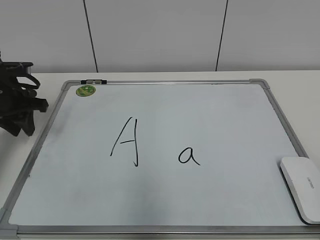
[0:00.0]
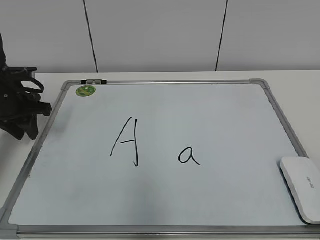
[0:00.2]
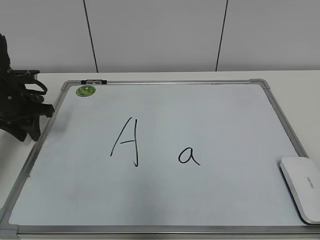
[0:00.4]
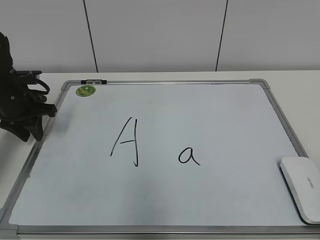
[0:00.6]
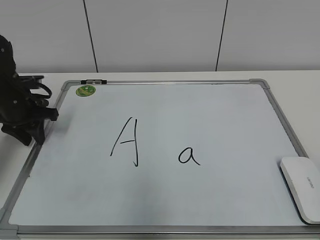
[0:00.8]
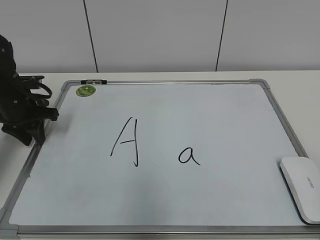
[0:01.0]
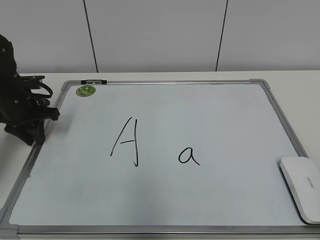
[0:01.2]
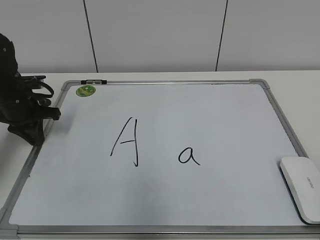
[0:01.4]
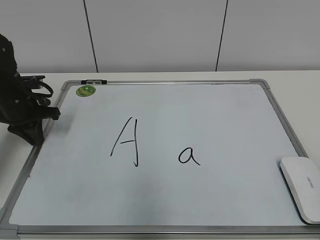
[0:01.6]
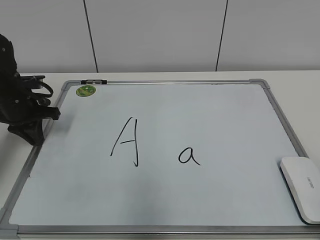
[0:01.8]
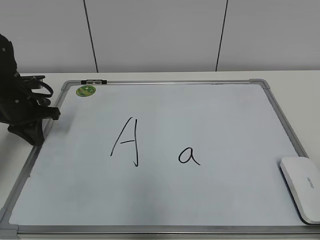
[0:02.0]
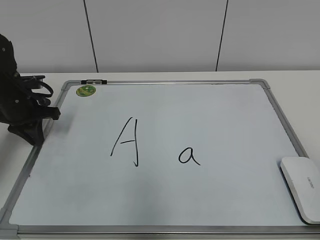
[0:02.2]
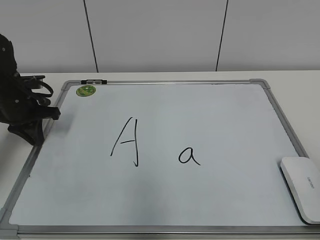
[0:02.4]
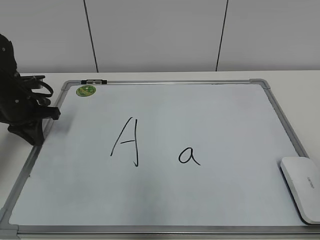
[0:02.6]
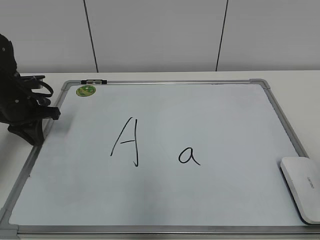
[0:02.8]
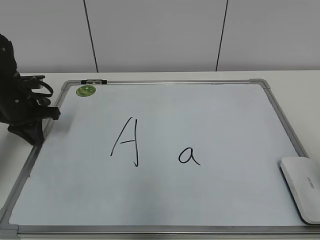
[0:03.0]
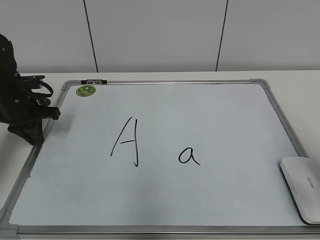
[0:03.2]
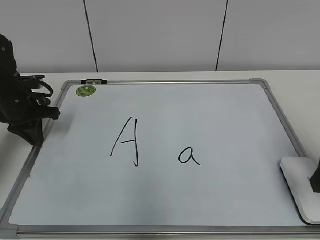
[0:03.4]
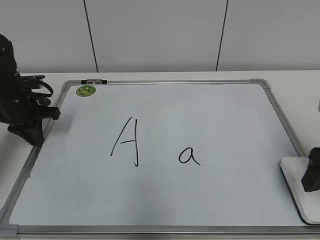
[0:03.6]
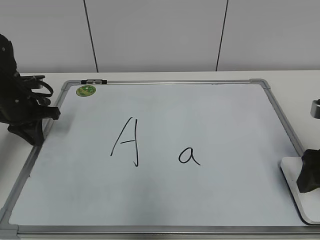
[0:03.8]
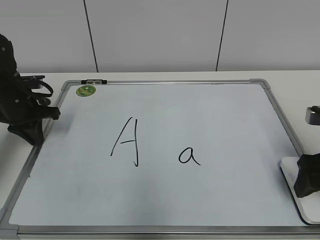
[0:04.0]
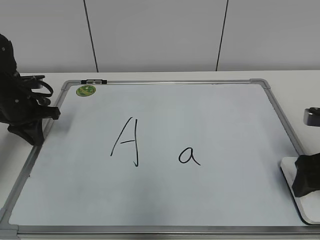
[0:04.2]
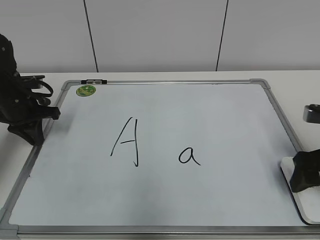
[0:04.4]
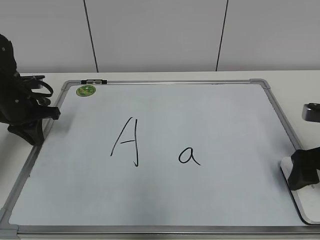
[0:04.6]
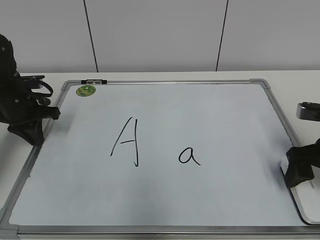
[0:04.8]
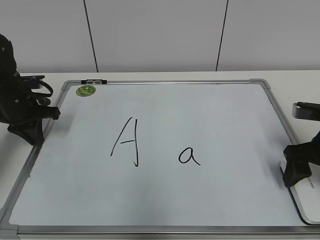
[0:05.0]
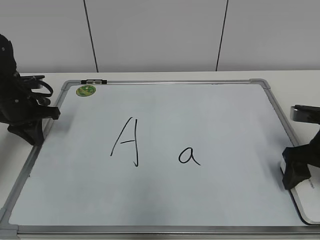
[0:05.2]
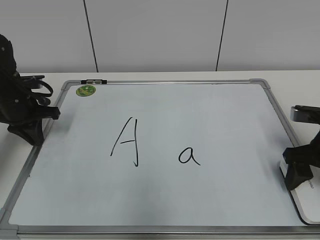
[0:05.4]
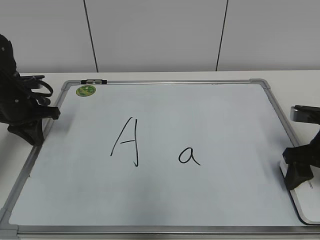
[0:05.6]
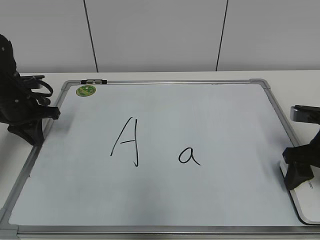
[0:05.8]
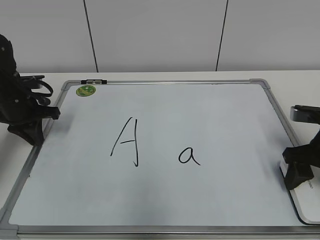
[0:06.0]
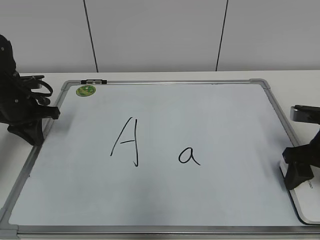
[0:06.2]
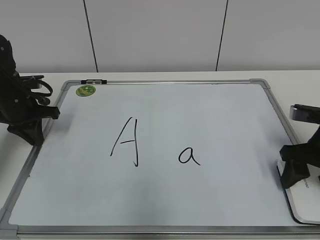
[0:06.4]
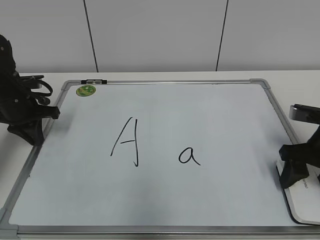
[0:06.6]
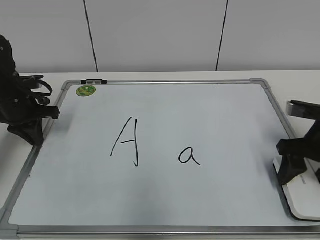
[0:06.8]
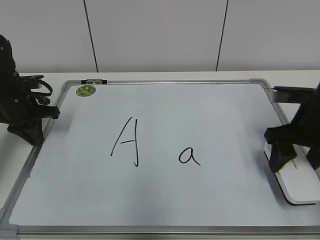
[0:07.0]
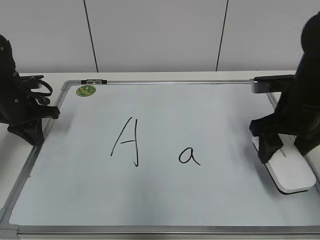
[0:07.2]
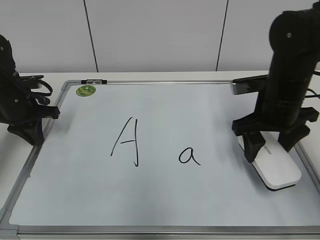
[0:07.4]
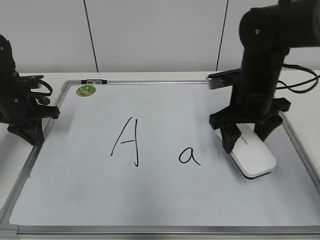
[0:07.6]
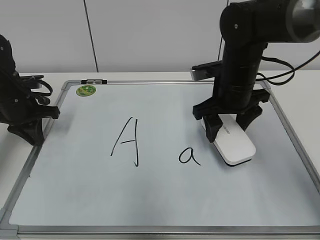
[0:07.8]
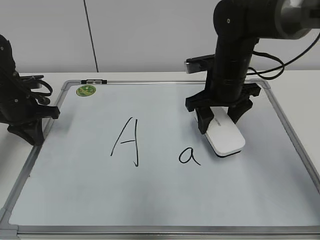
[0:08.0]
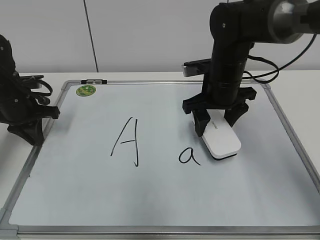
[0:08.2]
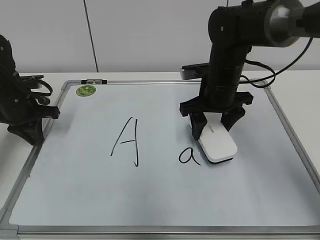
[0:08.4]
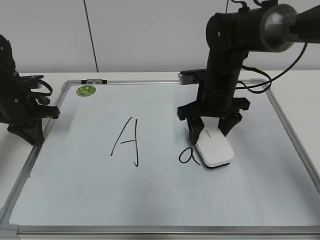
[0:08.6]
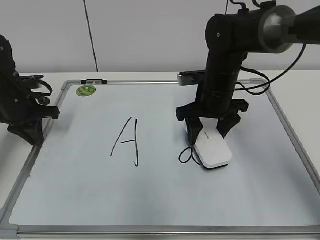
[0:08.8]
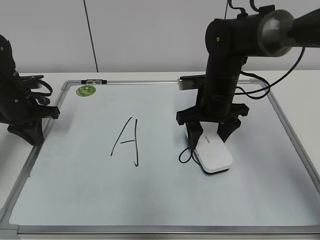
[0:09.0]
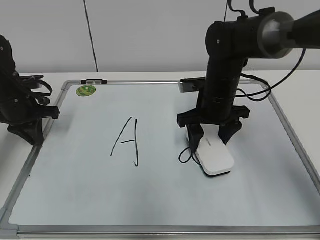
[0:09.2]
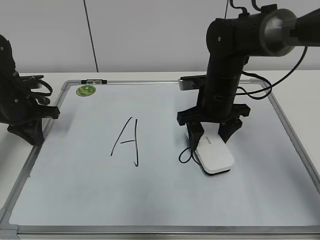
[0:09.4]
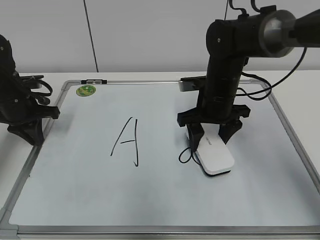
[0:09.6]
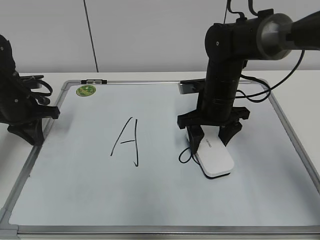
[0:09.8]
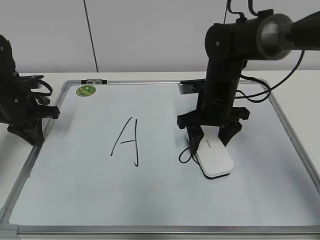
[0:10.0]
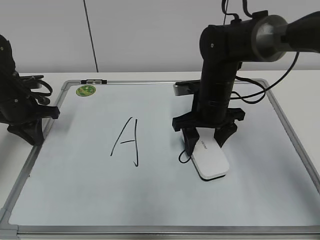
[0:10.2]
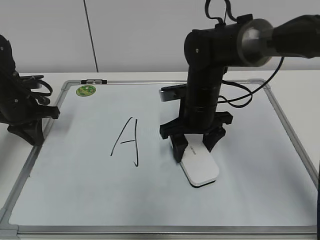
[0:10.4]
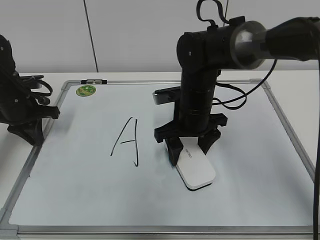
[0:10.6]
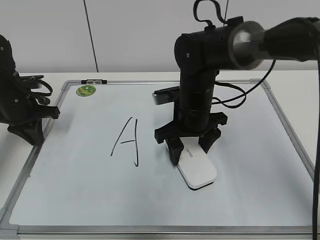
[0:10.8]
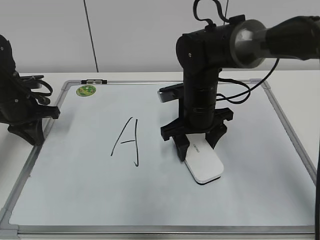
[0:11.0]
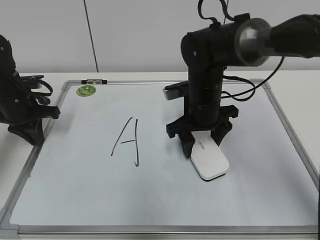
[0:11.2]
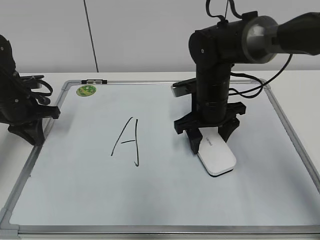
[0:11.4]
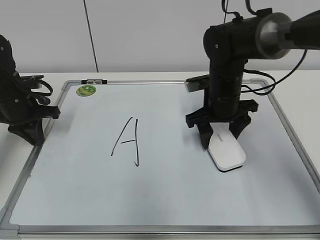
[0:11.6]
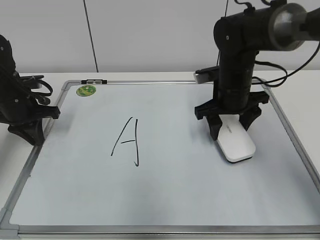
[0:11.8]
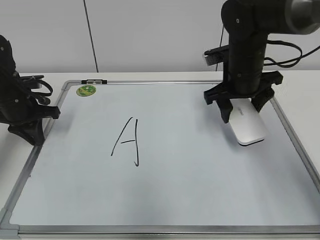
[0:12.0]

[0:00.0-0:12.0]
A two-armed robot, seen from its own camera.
Task of the whole recording: pick up the eraser on the blackboard and erase the letter "a".
Step, 0:01.4 to 0:06.2: Grab the eraser with your right hand.
Step, 0:06.4 to 0:11.6: Erase the letter a with your right hand.
0:00.0 to 0:01.6: The left gripper closes.
0:01.6 to 0:03.0: The right gripper shifts some 15 cm forward, and opens up.
0:03.0 to 0:04.4: The right gripper moves forward and downward, about 15 cm.
0:04.4 to 0:06.0: The right gripper closes its fingers.
0:06.0 to 0:07.6: The right gripper goes some 15 cm to the left and forward.
0:07.6 to 0:09.0: The right gripper is displaced to the left by approximately 5 cm.
0:09.0 to 0:10.4: The grippers move only a little.
0:10.4 to 0:12.0: The right gripper moves to the right and upward, about 10 cm.

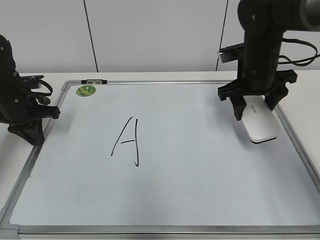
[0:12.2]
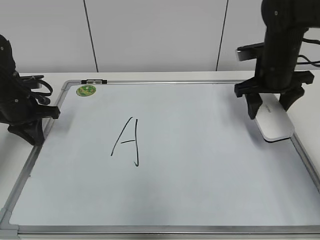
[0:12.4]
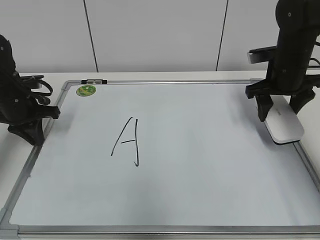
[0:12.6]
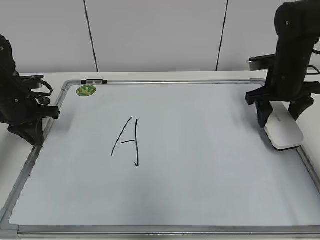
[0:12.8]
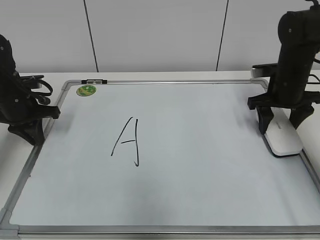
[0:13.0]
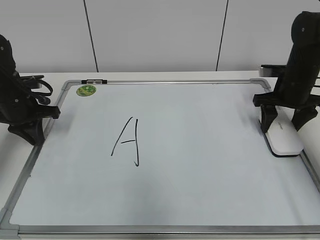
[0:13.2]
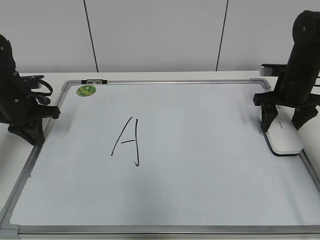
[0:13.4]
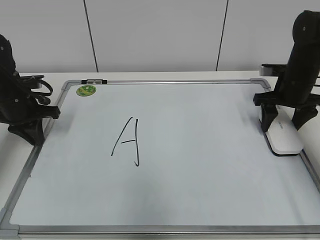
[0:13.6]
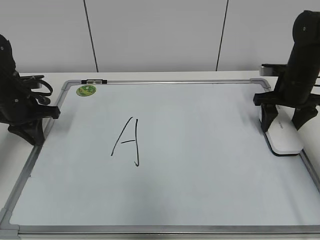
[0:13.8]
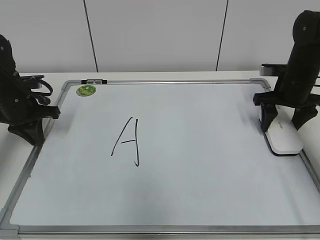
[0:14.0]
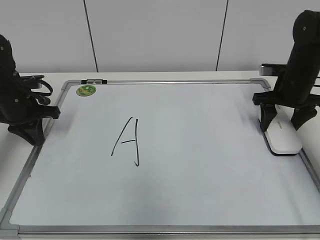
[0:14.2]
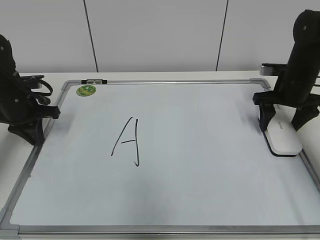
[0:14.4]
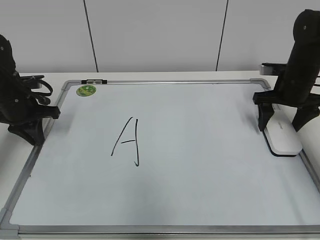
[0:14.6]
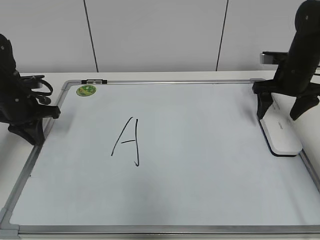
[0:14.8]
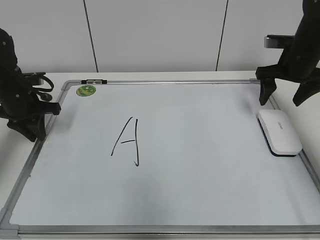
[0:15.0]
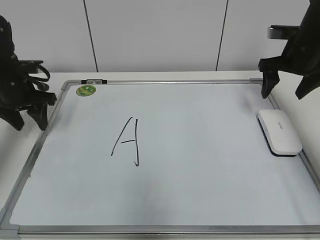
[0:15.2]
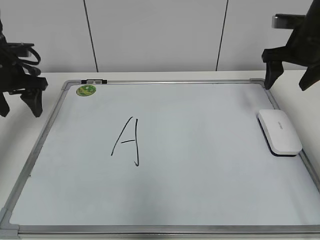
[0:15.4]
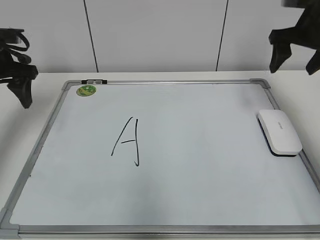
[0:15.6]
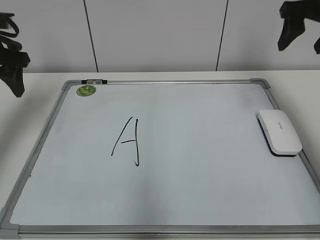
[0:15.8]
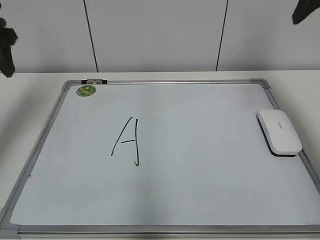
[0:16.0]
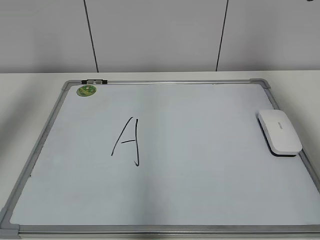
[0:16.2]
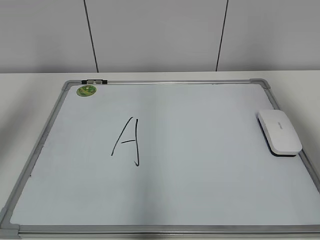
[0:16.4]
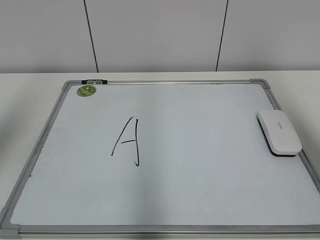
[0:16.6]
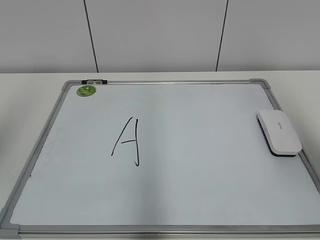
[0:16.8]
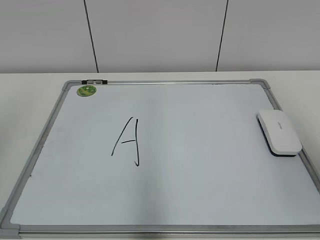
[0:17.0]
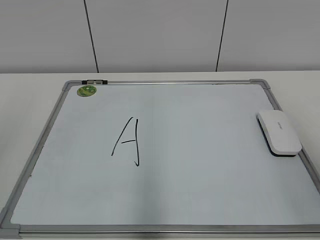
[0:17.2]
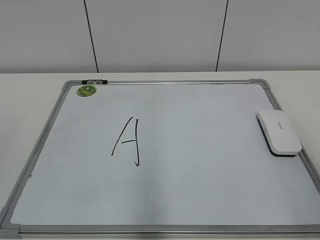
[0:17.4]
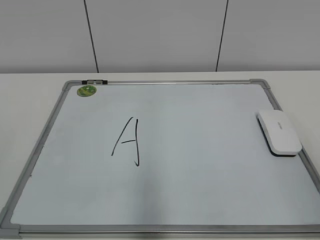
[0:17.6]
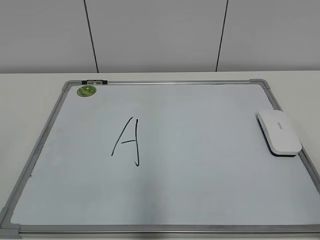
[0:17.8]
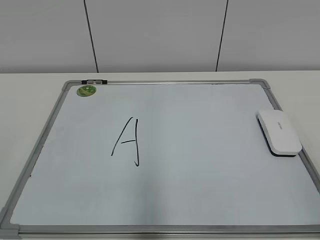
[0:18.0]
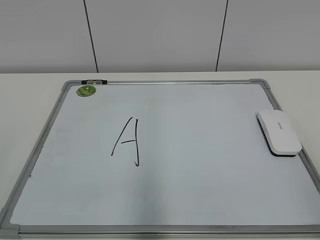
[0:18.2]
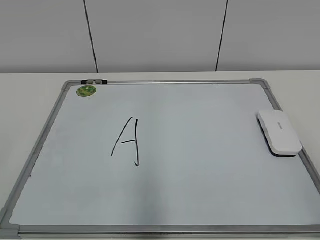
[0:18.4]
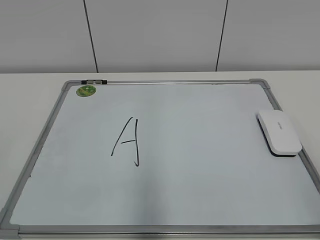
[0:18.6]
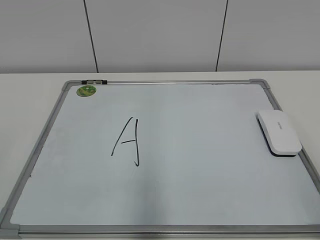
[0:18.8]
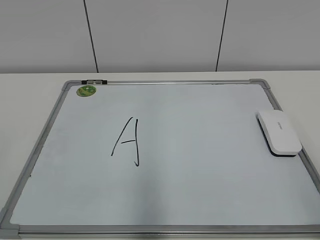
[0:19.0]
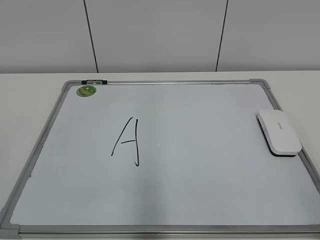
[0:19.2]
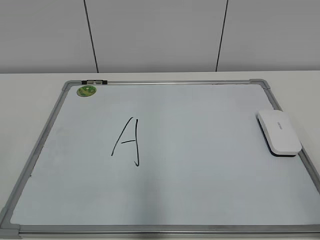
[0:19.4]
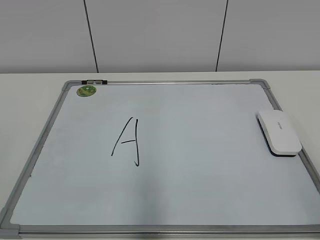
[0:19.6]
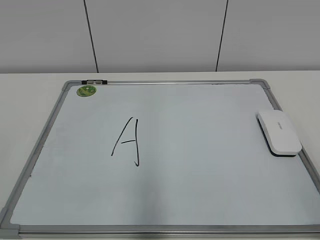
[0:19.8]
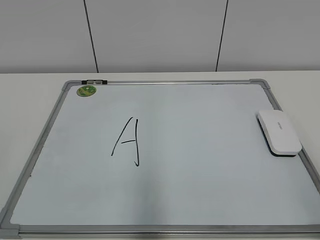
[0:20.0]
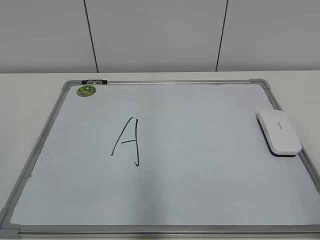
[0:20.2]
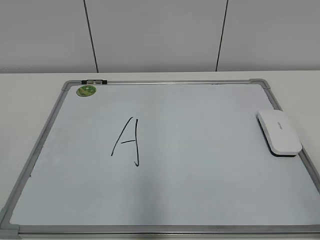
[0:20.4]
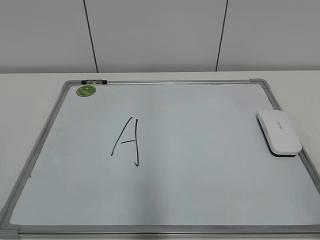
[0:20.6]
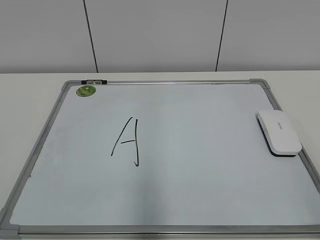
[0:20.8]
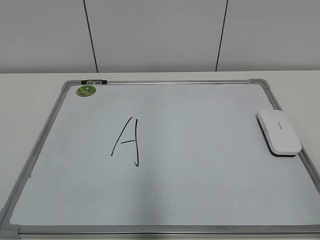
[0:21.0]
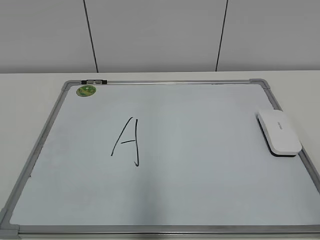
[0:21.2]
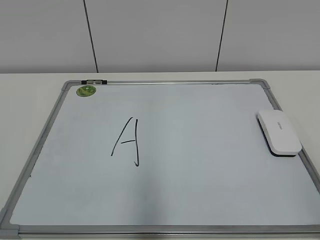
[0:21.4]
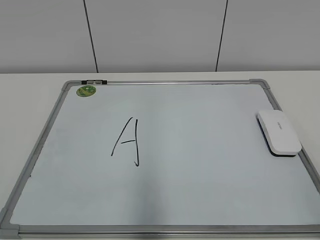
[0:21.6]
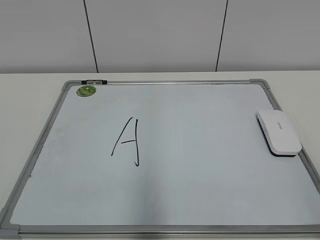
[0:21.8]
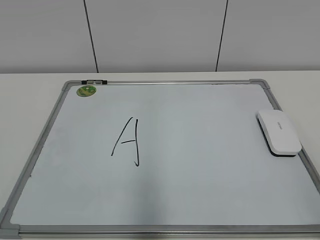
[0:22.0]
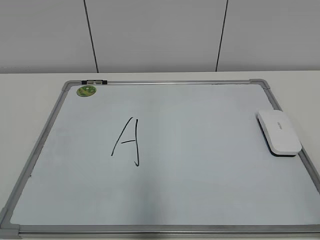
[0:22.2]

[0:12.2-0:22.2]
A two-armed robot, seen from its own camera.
Task of the whole recording: pick up the eraser on the blackboard and erase the letter "a".
Step, 0:12.2 to 0:14.4: Put down the eraser with your right hand.
0:12.2 to 0:13.6: The right gripper moves to the right, approximately 10 cm.
0:13.6 to 0:15.0: The right gripper opens.
0:15.0 to 0:16.4: The two grippers go roughly 30 cm upward and backward. The left gripper opens up. The right gripper closes its fingers.
0:16.4 to 0:18.0: Both grippers travel together backward and downward, approximately 30 cm.
0:20.8 to 0:22.2: Neither gripper changes place.
